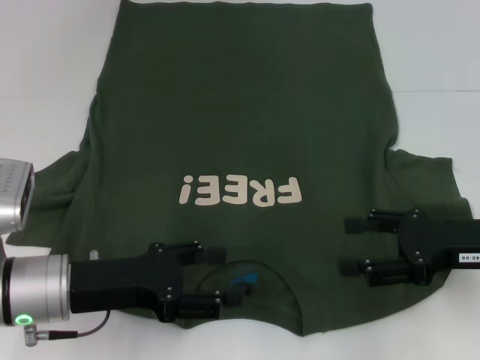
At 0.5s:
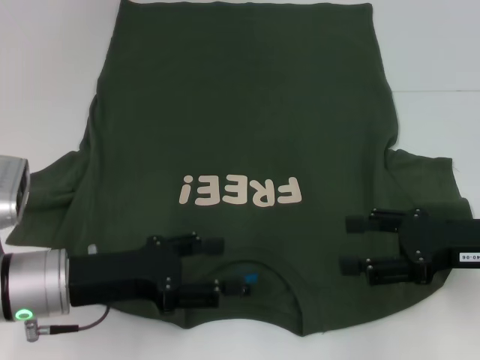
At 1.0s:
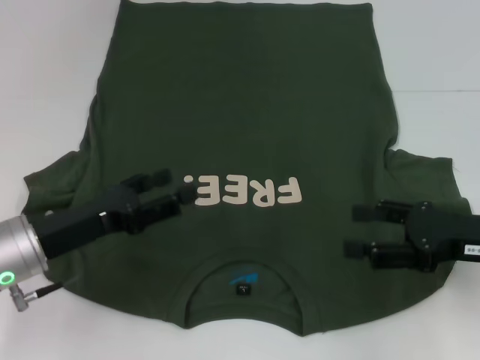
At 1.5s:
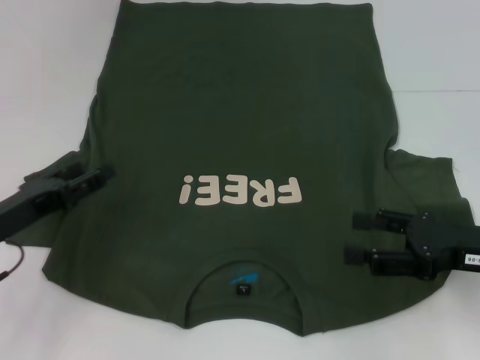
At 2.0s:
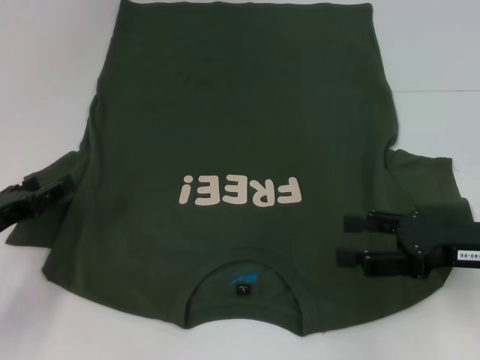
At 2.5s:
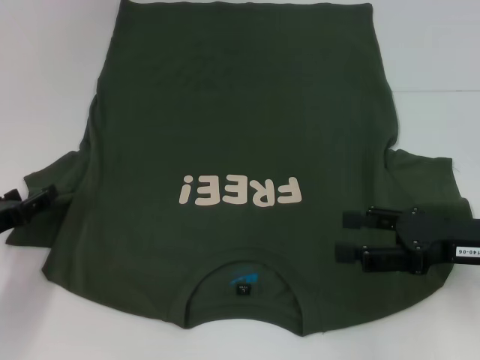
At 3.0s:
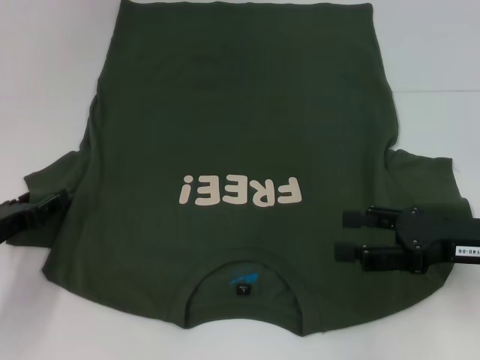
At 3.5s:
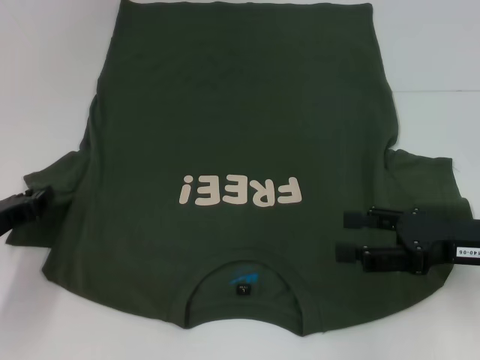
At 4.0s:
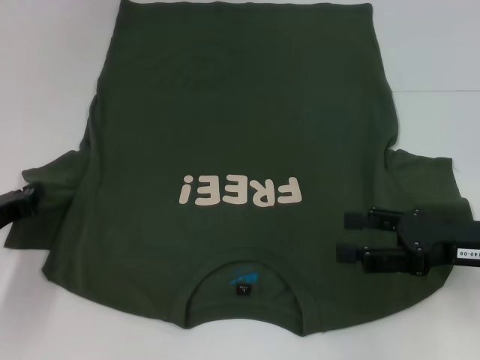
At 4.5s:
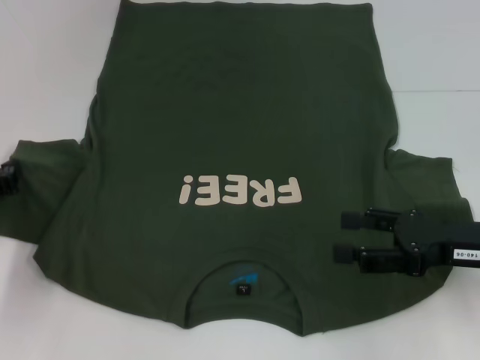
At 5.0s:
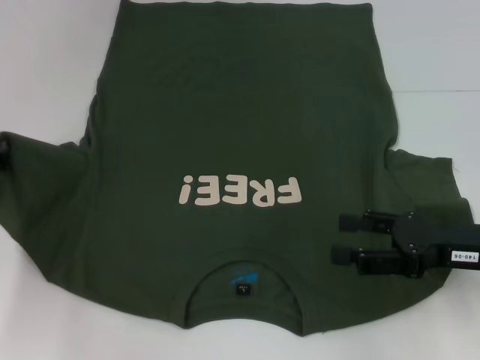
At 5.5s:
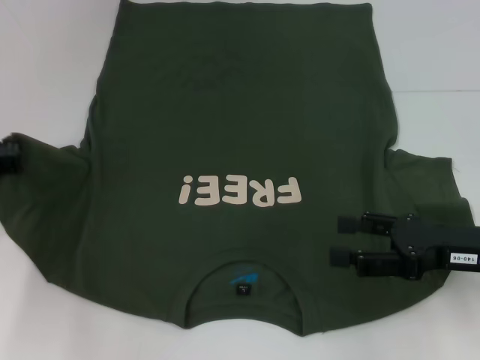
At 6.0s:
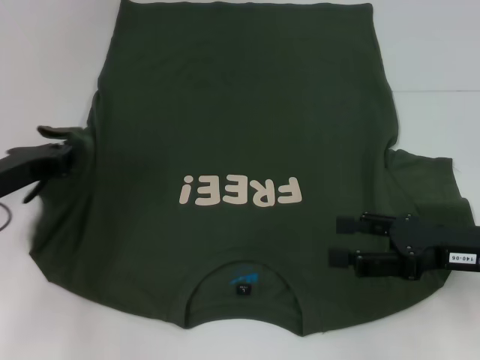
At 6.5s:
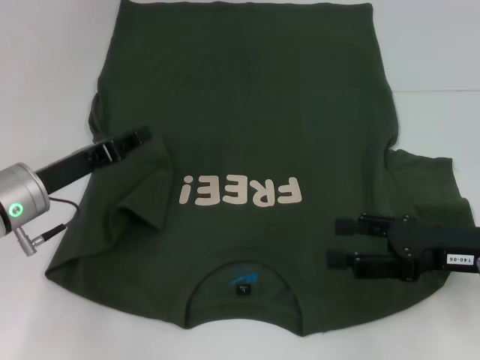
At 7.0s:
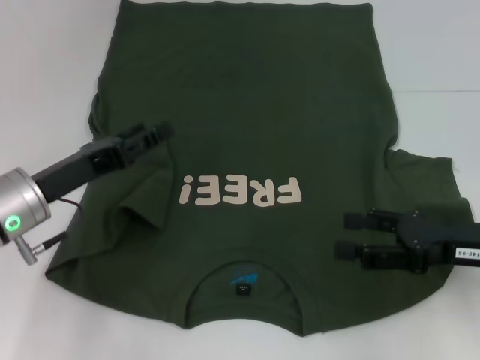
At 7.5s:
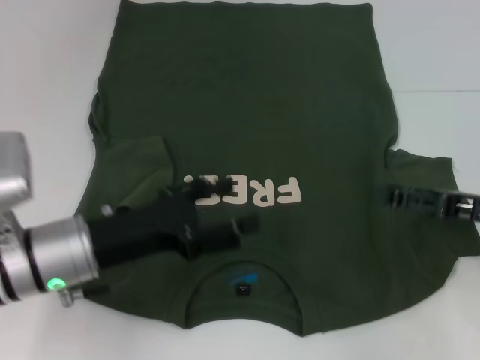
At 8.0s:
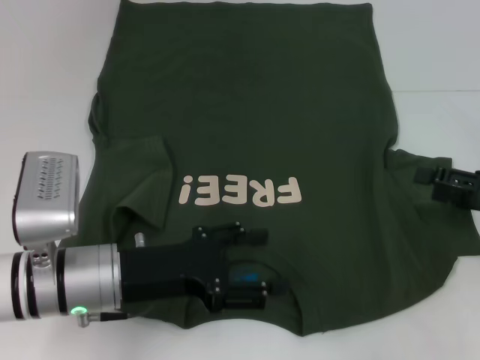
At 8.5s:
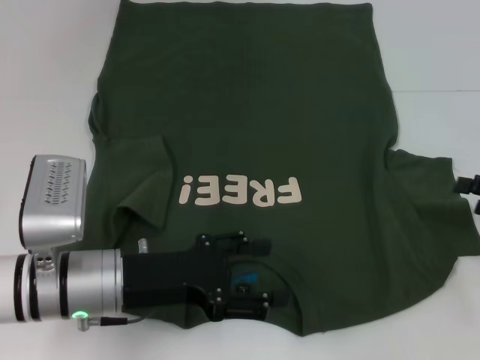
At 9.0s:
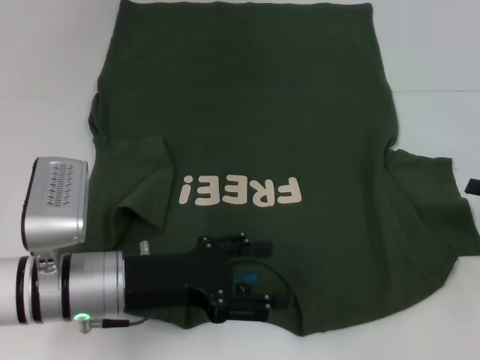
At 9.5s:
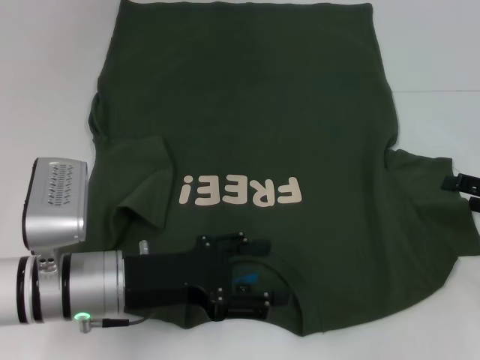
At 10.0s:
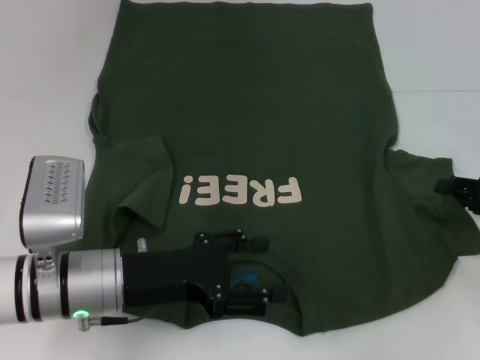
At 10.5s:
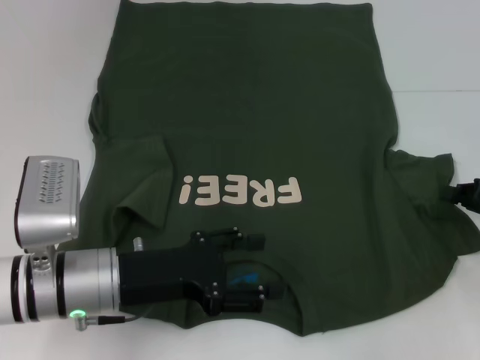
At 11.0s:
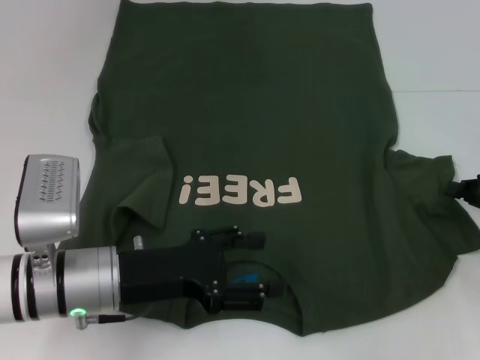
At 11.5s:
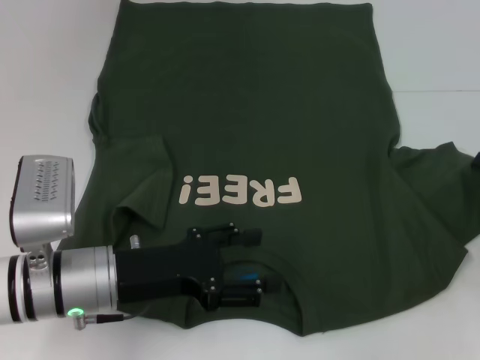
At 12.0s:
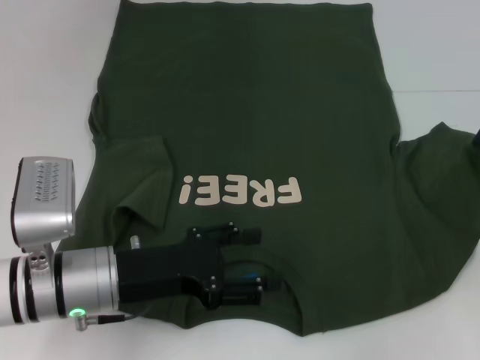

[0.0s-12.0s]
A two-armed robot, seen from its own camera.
Step, 0.0s to 7.0s: Fold the bottom left sleeve with your left hand.
0.0s to 2.0s: The left gripper goes some 10 cm to the left.
2.0s to 4.0s: The left gripper closes its fingers.
4.0s to 6.0s: The left gripper heads upward, covering about 5 cm.
6.0s to 8.0s: The left gripper travels to the right and backward by approximately 15 cm, and opens its fingers. The right gripper moves to the right, approximately 10 cm.
8.0s to 10.0s: The grippers stay close to where they were, moving slightly.
10.0s to 12.0s: The right gripper closes up.

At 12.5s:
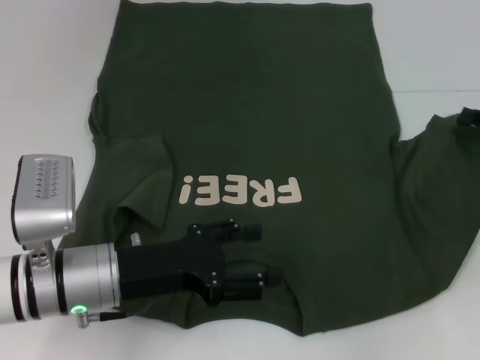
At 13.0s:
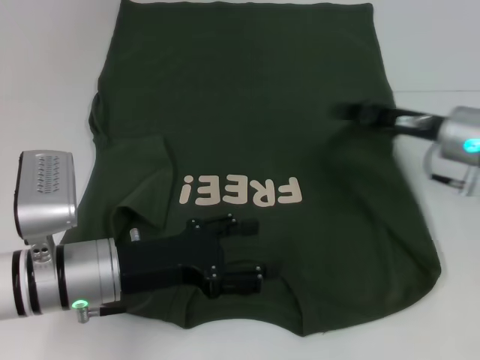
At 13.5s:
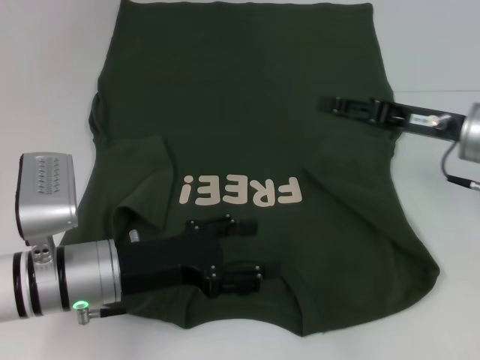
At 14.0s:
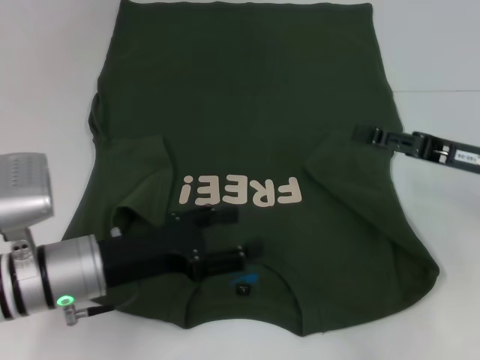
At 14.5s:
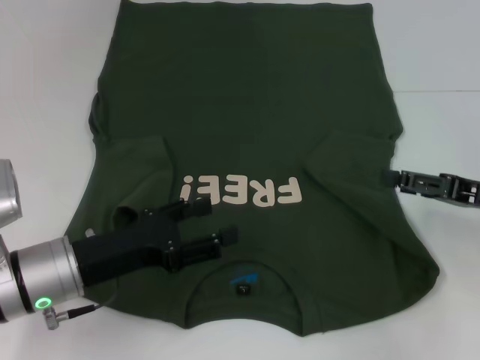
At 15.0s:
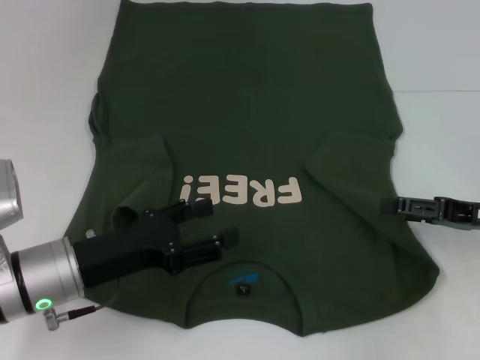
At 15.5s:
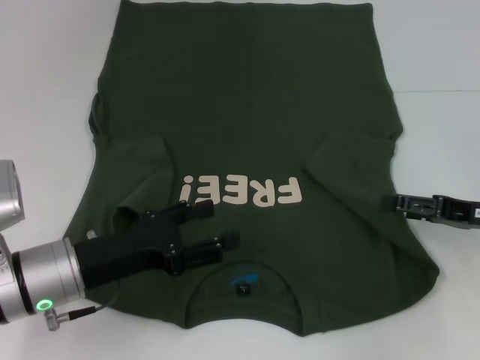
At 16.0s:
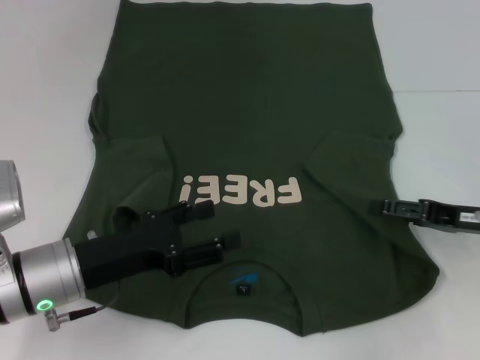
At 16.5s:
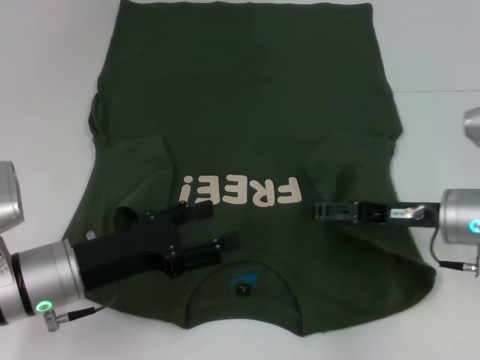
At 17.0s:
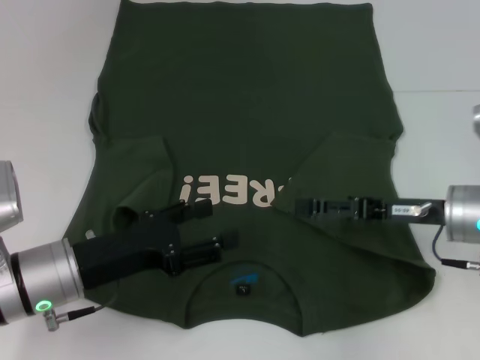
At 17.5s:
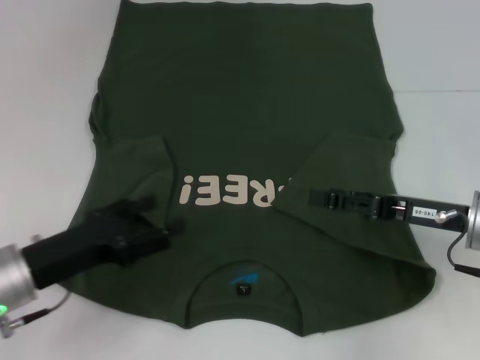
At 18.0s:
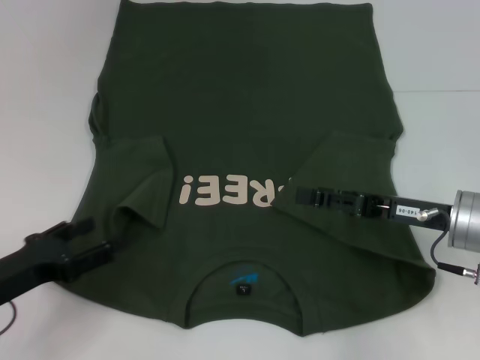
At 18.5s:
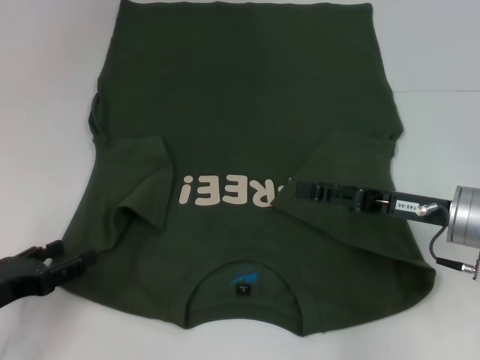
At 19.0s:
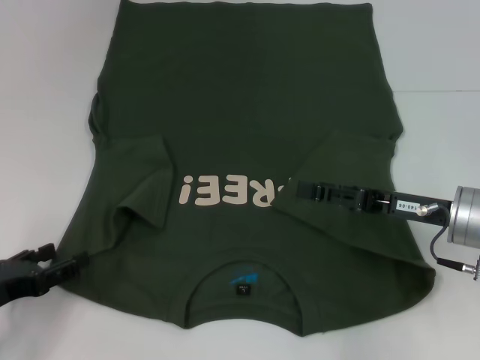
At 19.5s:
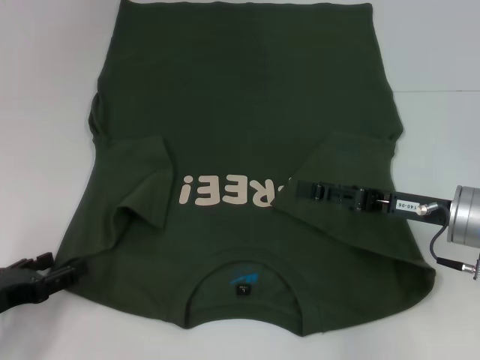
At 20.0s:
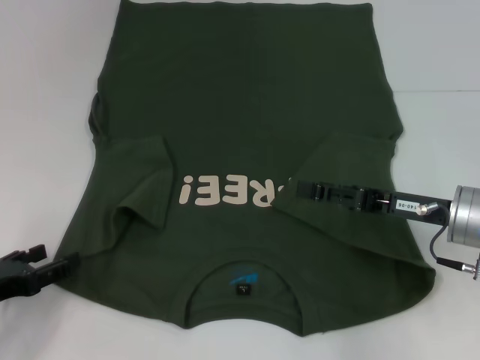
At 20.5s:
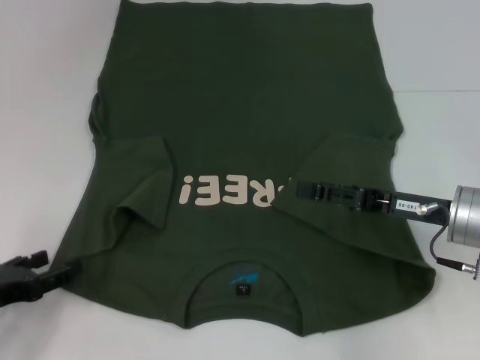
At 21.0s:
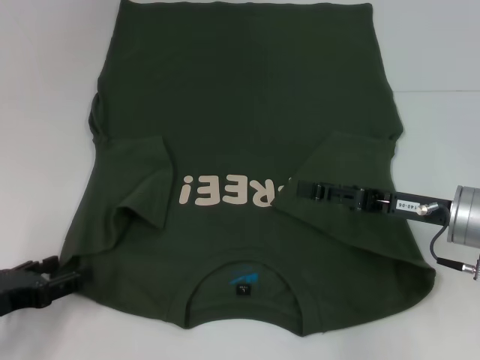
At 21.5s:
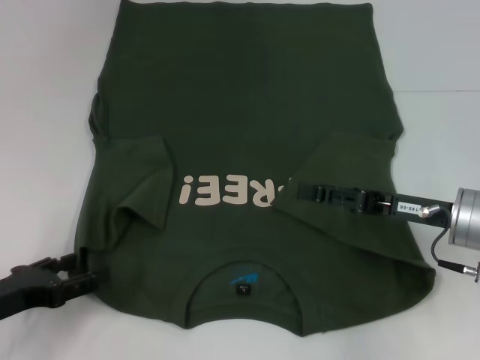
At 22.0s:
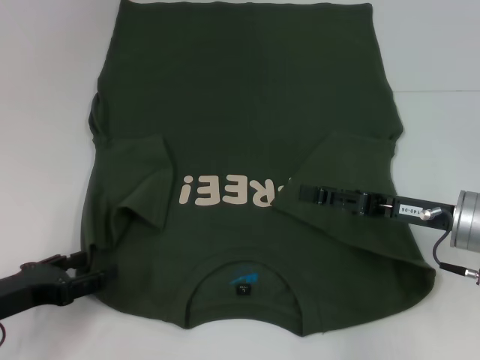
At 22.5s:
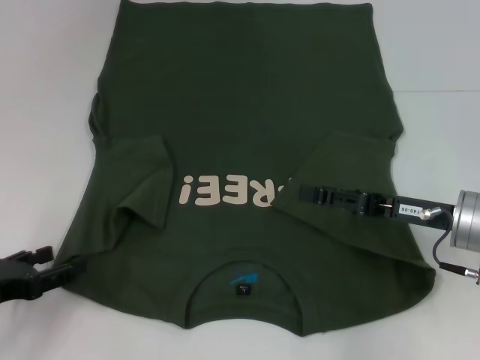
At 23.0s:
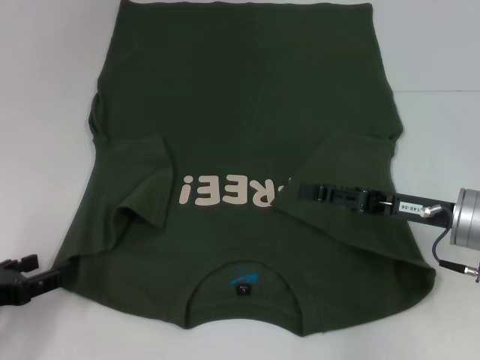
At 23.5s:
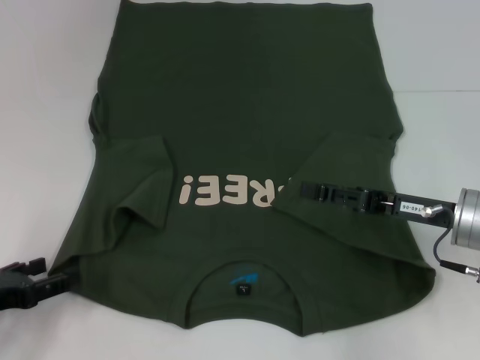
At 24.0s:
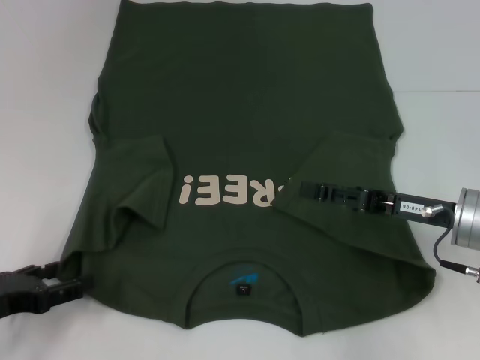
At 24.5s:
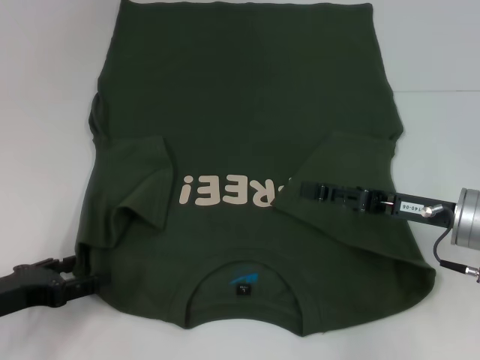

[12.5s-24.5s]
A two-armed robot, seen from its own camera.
Step, 12.5s to 17.0s: Fold the bottom right sleeve with your right hand.
12.5s to 14.5s: The right gripper reaches approximately 10 cm to the left, then returns, and opens up.
14.5s to 16.5s: The right gripper heads to the left, covering about 10 cm.
16.5s to 18.5s: The left gripper heads to the left, covering some 10 cm.
18.5s to 24.5s: The grippers make only small movements.

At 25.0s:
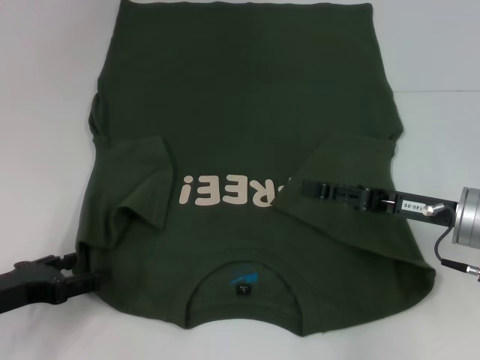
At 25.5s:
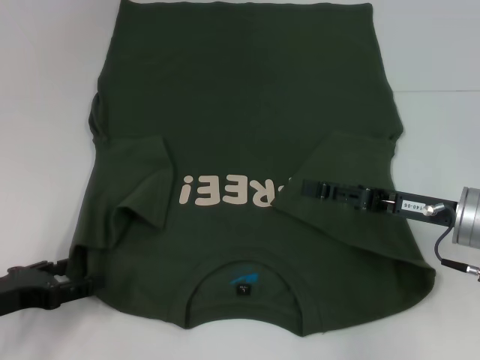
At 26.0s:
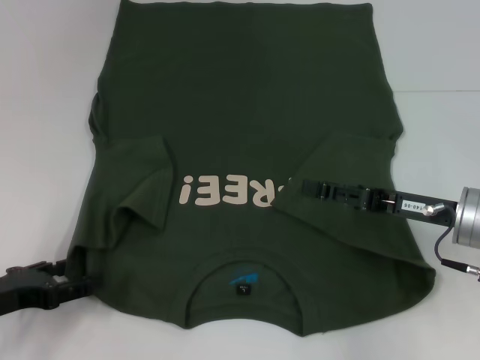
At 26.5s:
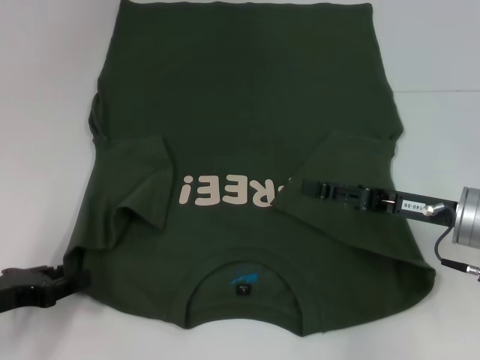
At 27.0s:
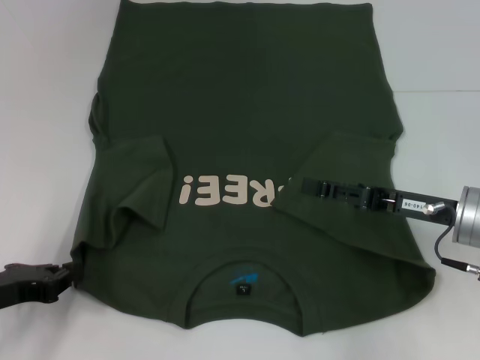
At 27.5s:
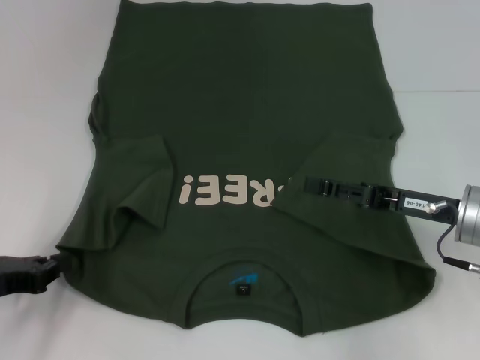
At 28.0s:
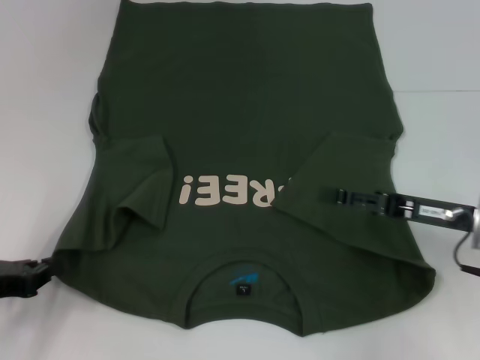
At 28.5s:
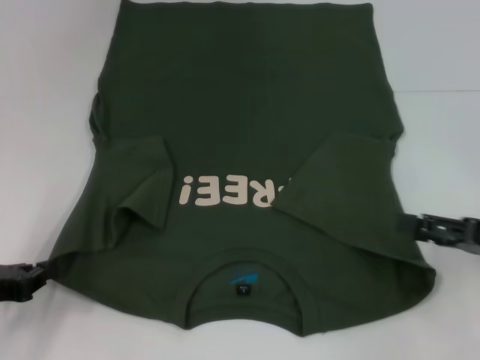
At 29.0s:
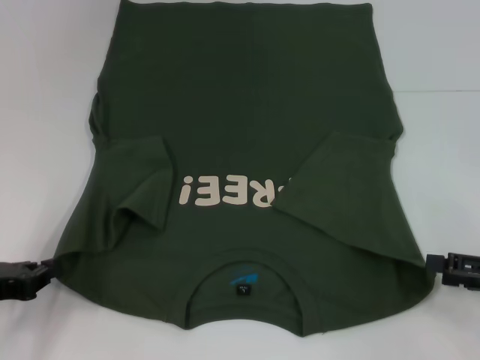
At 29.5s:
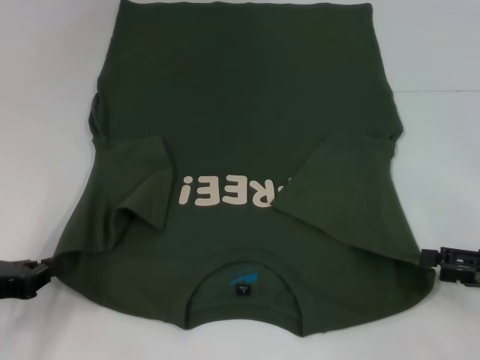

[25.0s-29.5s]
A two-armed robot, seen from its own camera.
Step, 25.0s to 27.0s: Grab the bottom left corner with your left hand.
25.0s to 27.0s: The left gripper closes up.
27.0s to 29.5s: The right gripper moves to the right and backward, approximately 15 cm.
